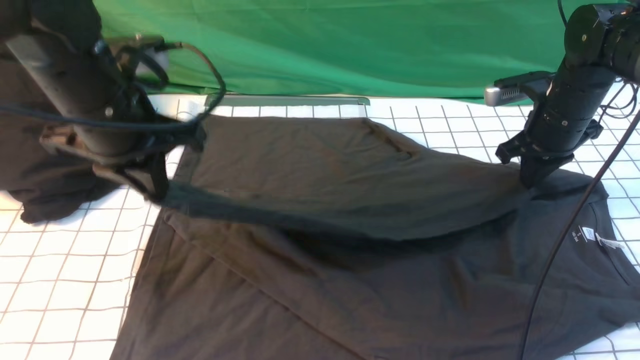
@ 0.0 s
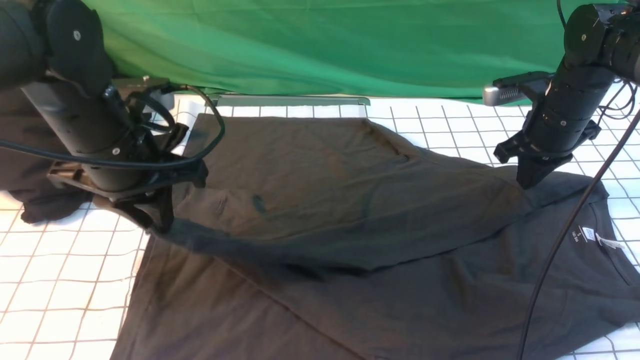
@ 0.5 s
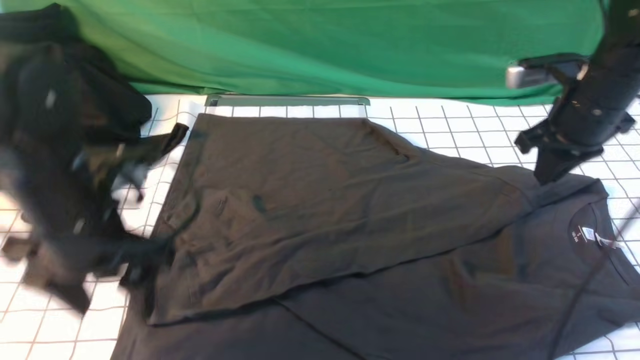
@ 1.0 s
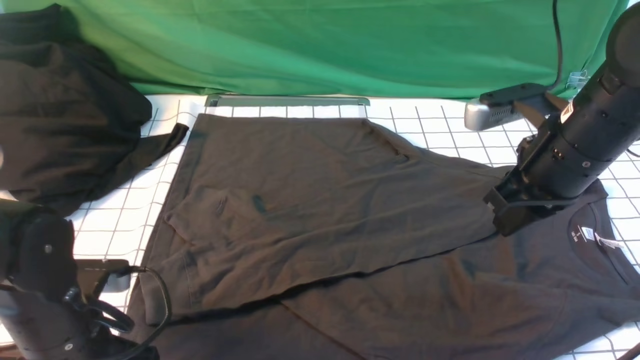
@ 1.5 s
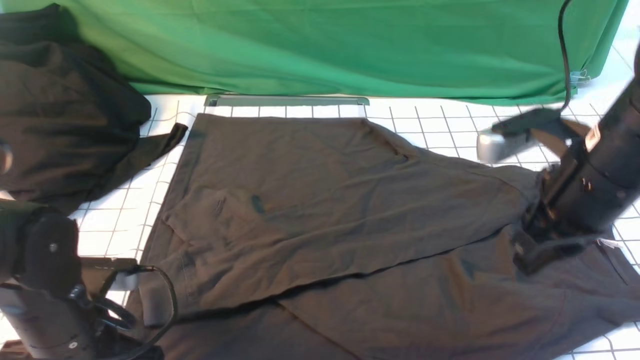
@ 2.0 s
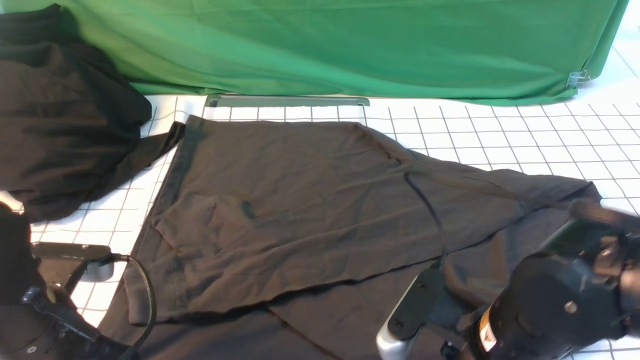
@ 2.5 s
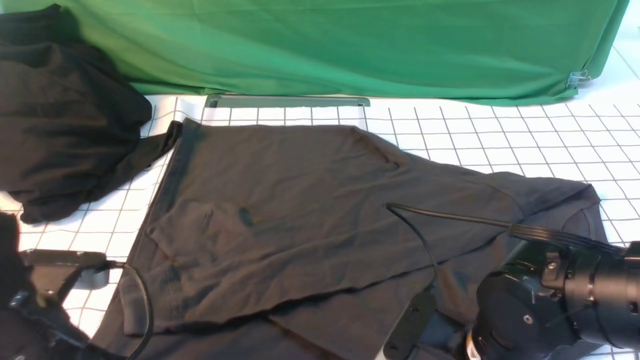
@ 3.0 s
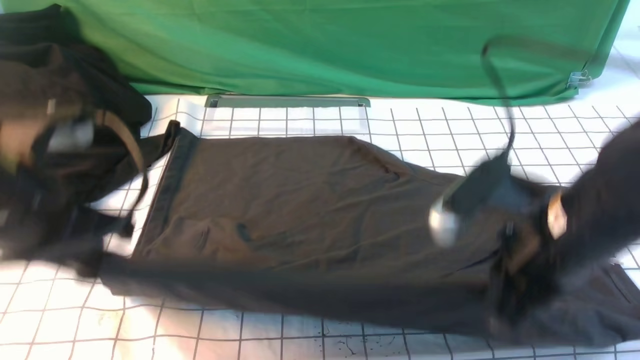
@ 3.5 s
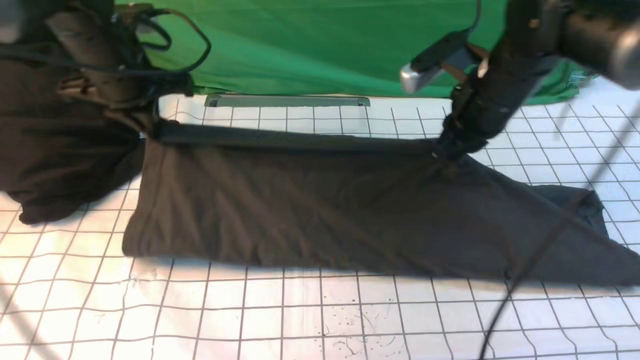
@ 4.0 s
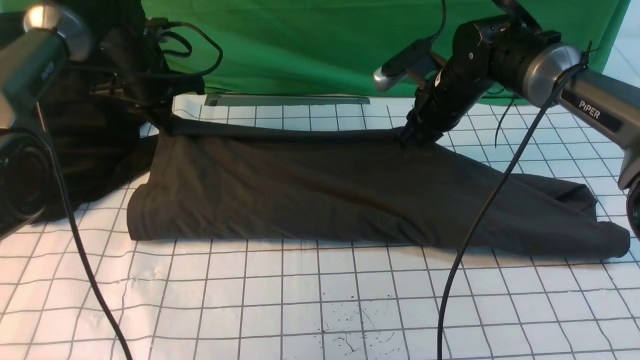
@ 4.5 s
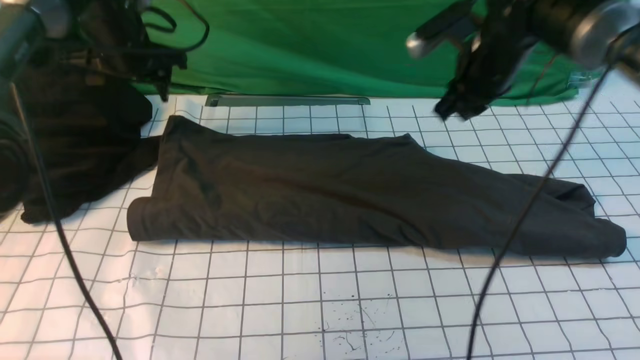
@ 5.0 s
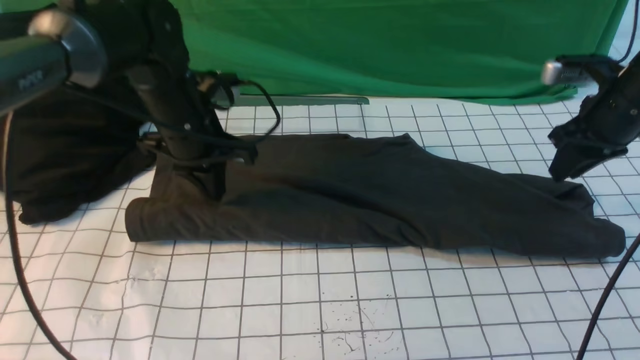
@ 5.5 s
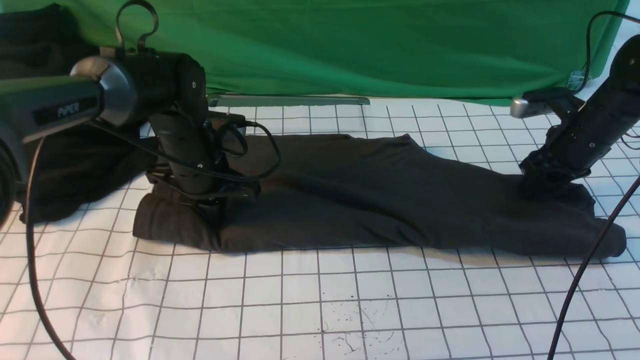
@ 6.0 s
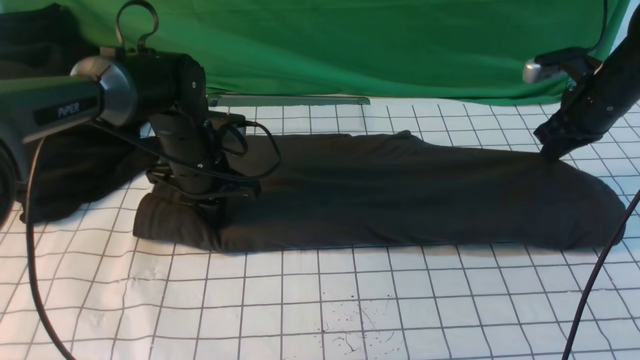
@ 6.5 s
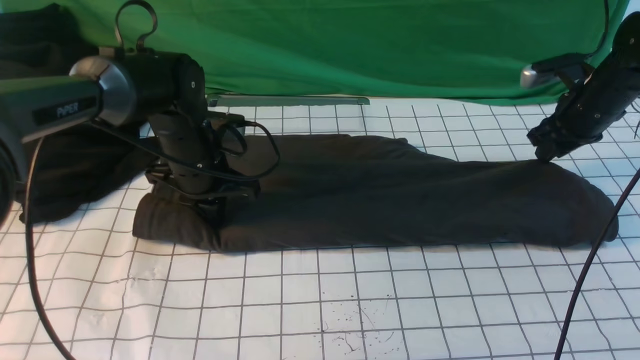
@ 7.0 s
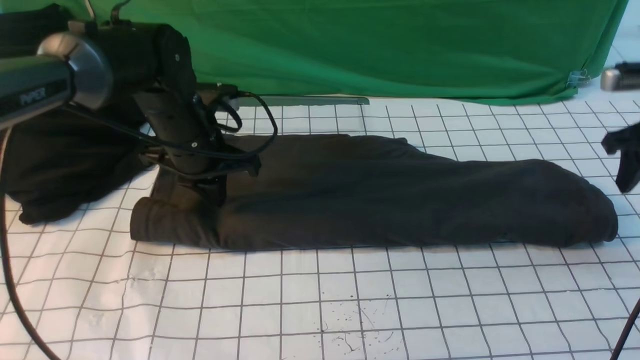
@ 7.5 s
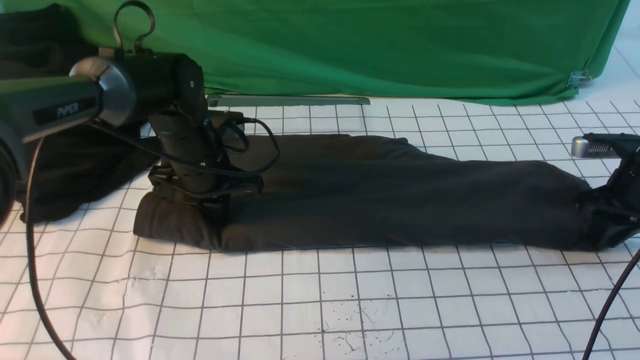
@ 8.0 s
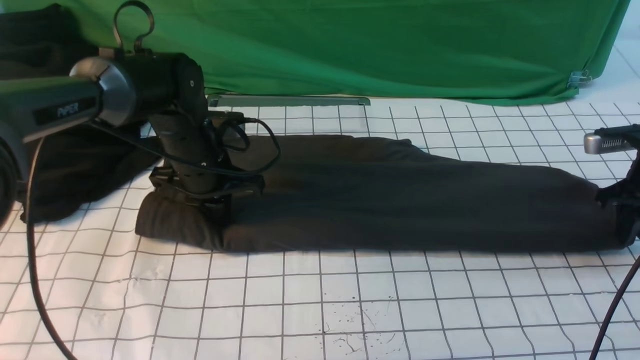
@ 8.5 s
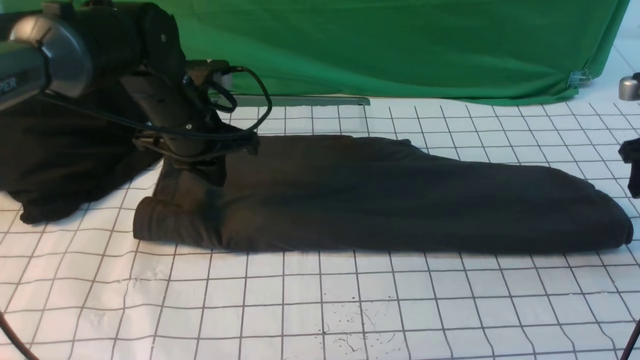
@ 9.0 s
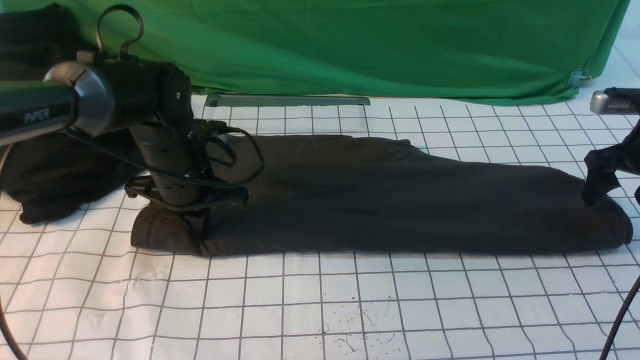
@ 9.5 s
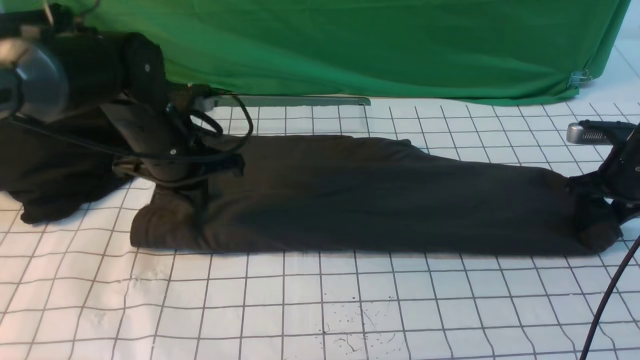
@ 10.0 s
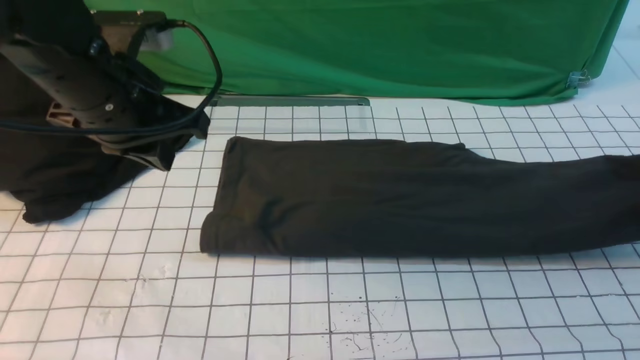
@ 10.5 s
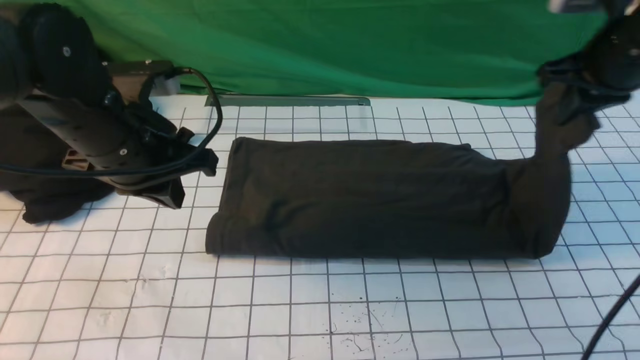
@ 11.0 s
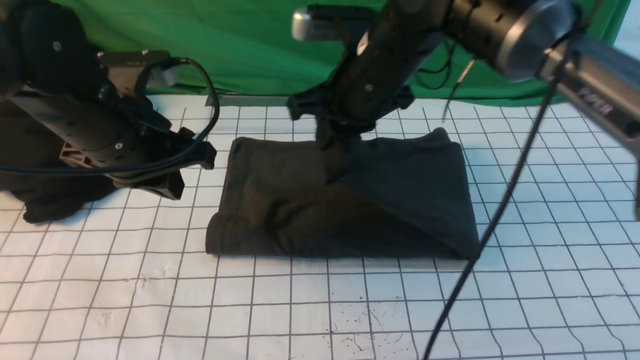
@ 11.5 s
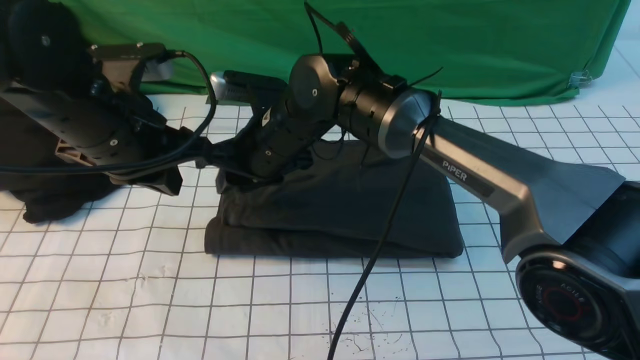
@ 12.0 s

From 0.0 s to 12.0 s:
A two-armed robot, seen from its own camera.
Step, from 1.0 s to 2.5 s: use both arms simultaneously to clamp the lower edge of the clothing fabric.
Step, from 3.0 s to 4.5 s: use both arms to drag the lower edge of the fabric forward and fold it over the upper edge.
Step, from 5.0 s to 10.0 s: use the right arm to clamp the right edge of the fabric.
Step, from 10.5 s to 11.5 s: use the right arm to drag the right edge of the fabric to the left and folds it over the left edge.
From 0.0 s to 2.0 s: The right gripper goes some 20 cm backward. Meanwhile the left gripper travels downward and backward by roughly 15 cm, and opens and closes again.
From 2.0 s to 4.0 s: The left gripper travels forward and upward by some 25 cm. Meanwhile the right gripper goes about 15 cm forward, and opens, then closes again.
From 4.0 s to 6.0 s: The right gripper shifts some 20 cm to the right and downward; the left gripper swings up and down, about 10 cm each way, with 2 reversals, and opens, then closes once more.
From 6.0 s to 8.0 s: The right gripper goes some 5 cm to the right, and closes, then opens again.
From 8.0 s to 10.0 s: The left gripper moves up and down over roughly 5 cm, changing direction 2 times. Meanwhile the right gripper goes upward and returns, some 5 cm each way, and opens and closes again.
From 10.0 s to 12.0 s: The right gripper is displaced to the left by approximately 40 cm, and closes, then reopens. Meanwhile the left gripper travels backward and upward by approximately 10 cm.

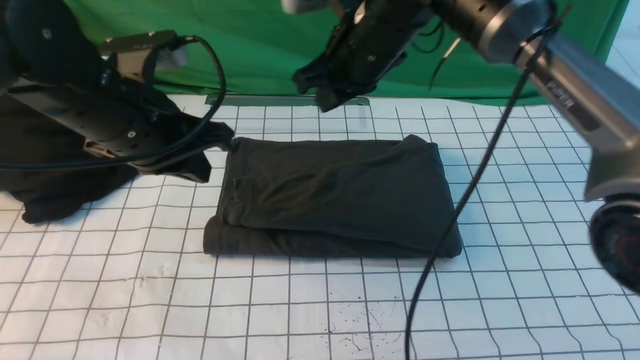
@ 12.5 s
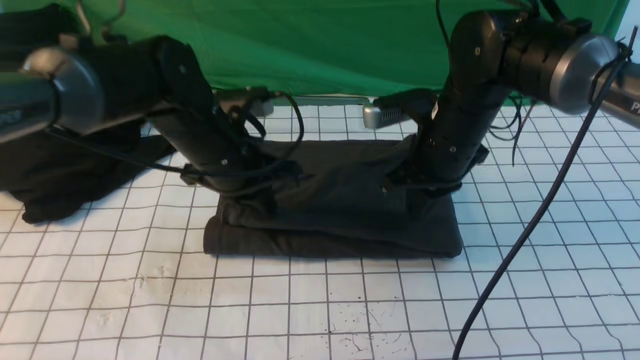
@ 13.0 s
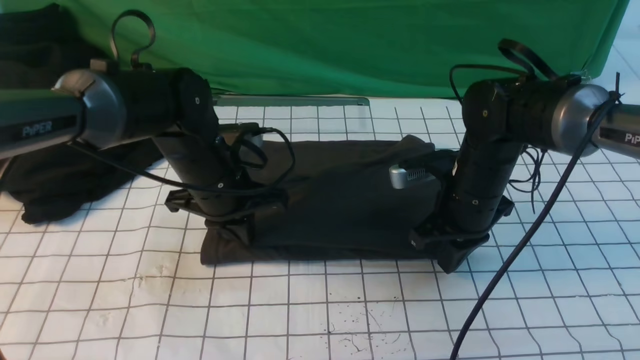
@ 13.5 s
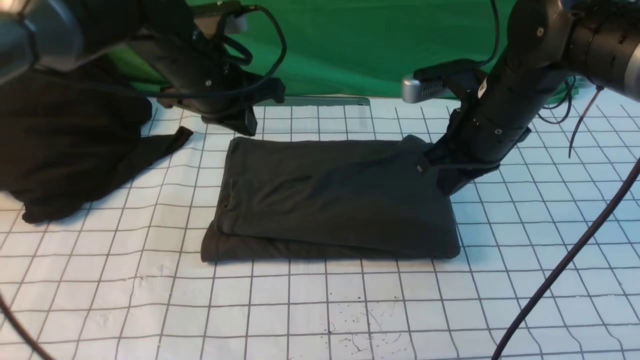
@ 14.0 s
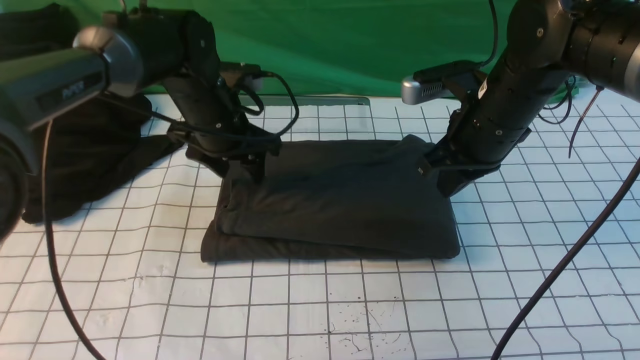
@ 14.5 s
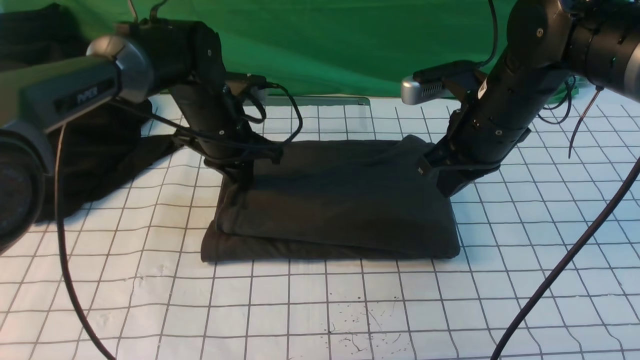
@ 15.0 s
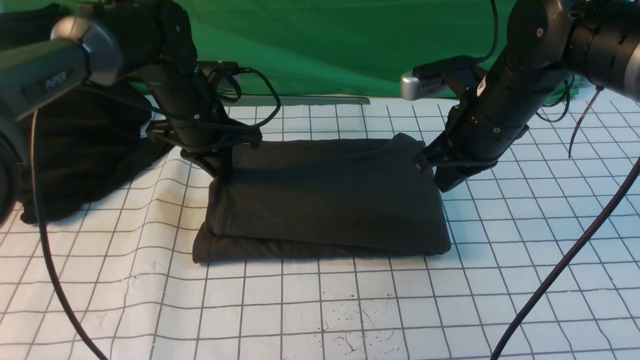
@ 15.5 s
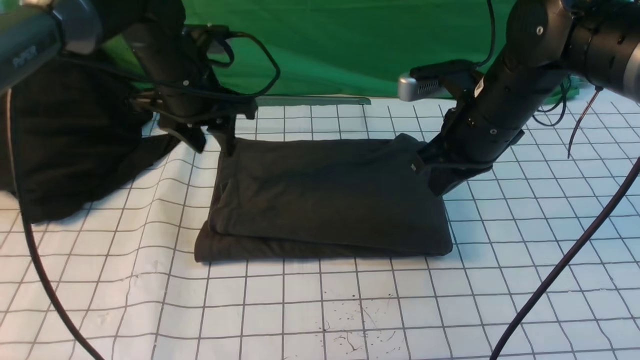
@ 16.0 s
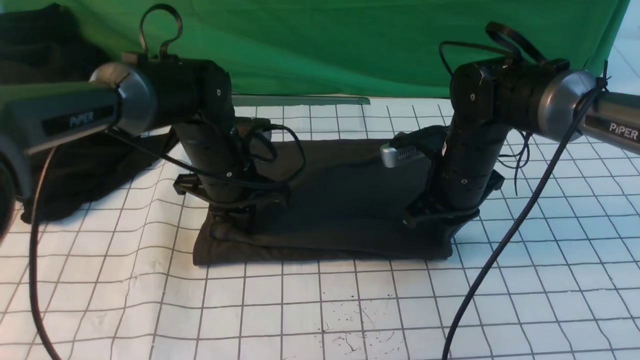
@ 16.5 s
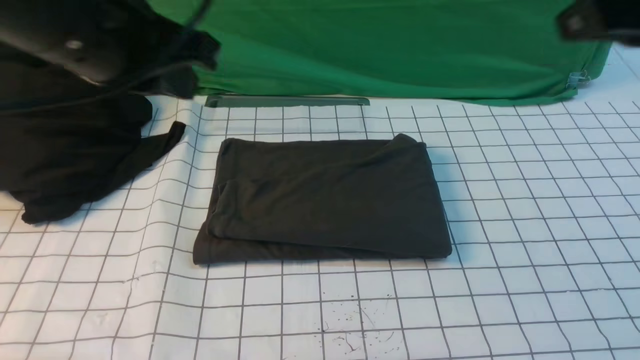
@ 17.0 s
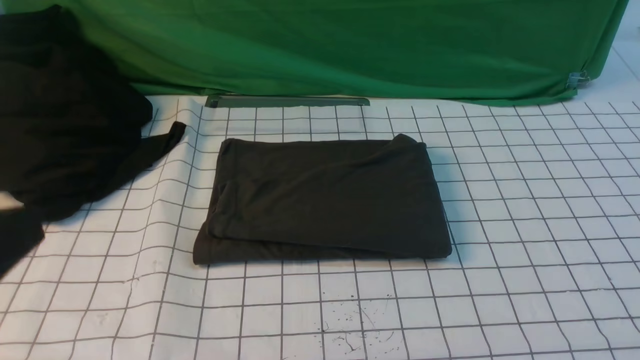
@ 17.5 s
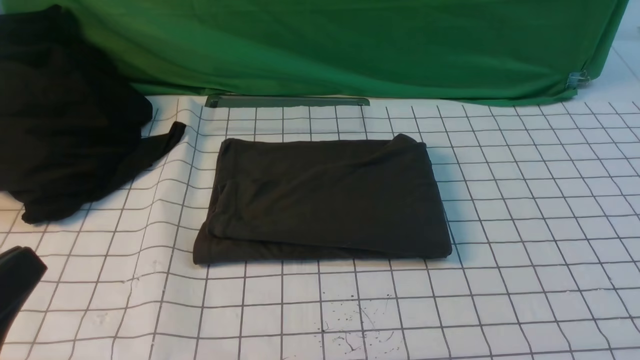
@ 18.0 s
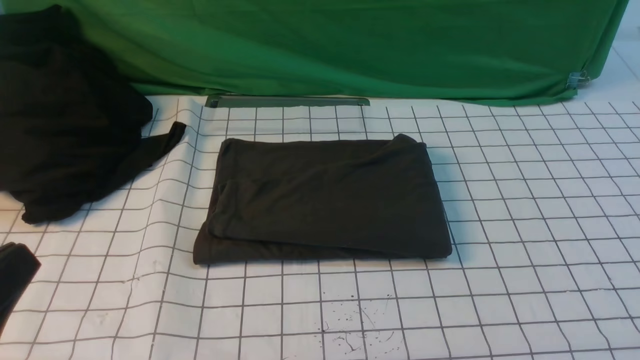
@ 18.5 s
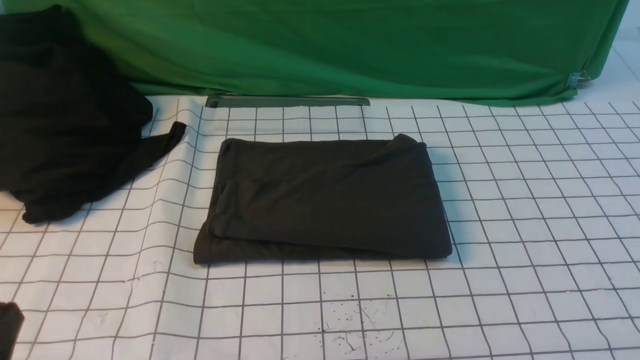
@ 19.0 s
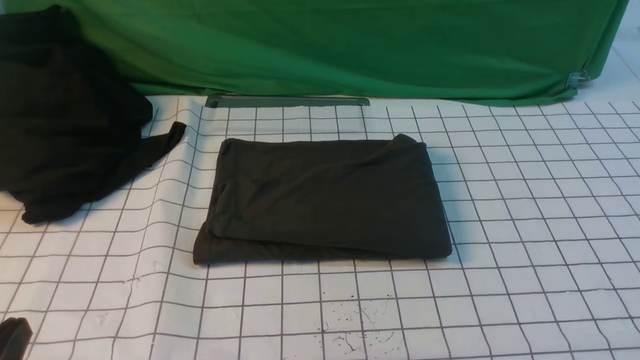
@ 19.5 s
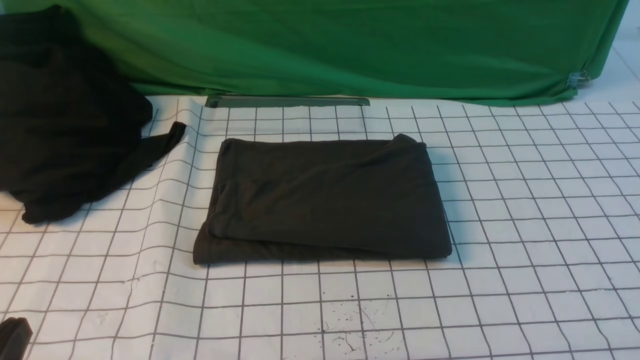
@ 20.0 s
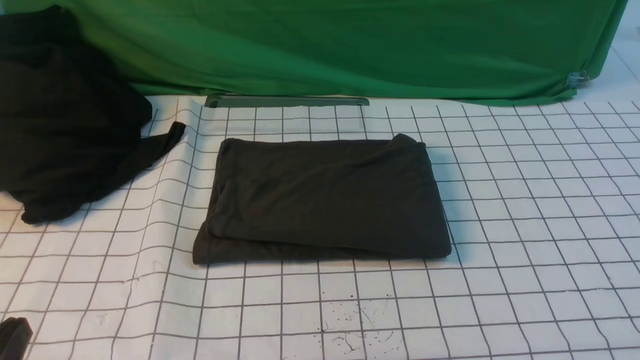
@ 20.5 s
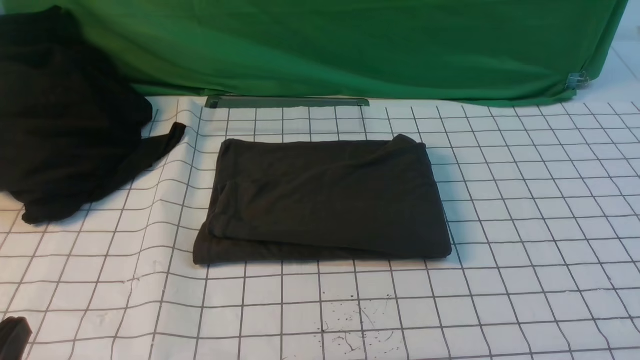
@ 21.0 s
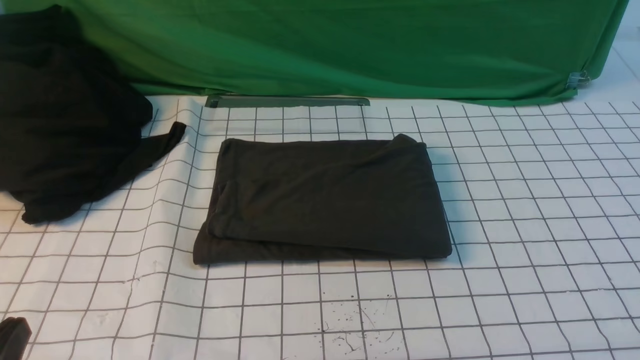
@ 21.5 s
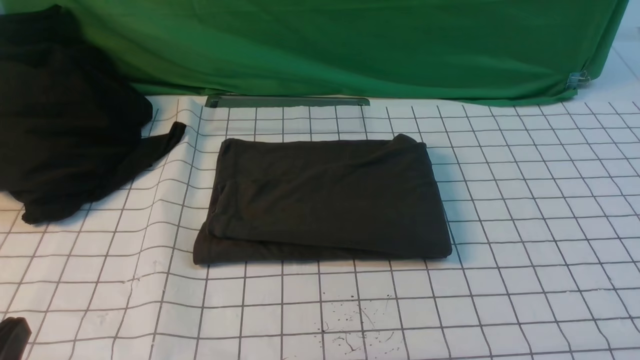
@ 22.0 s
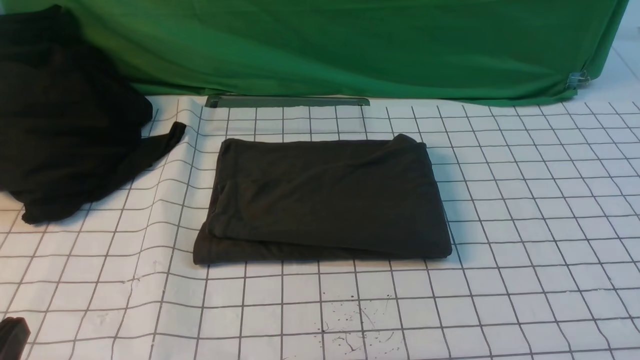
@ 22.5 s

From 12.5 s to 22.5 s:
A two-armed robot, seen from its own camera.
From 12.5 s to 14.5 s: The right gripper heads to the right, covering roughly 10 cm, and moves about 10 cm downward and comes back. Meanwhile the left gripper travels forward and downward by about 15 cm, and opens up.
From 14.5 s to 16.5 s: The left gripper closes up.
From 16.5 s to 18.5 s: The right gripper shifts roughly 40 cm backward and to the right; the left gripper travels backward by some 35 cm.
From 18.5 s to 20.5 s: The left gripper moves downward, roughly 10 cm.
